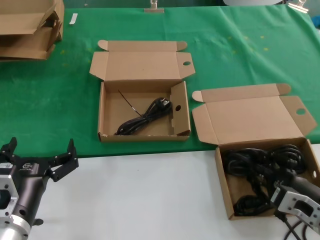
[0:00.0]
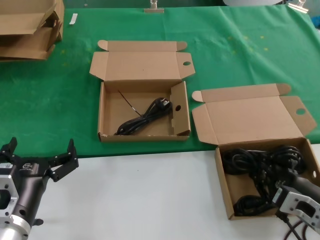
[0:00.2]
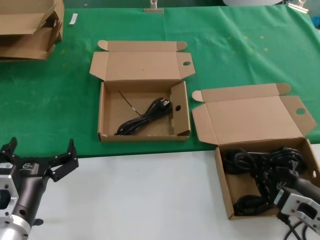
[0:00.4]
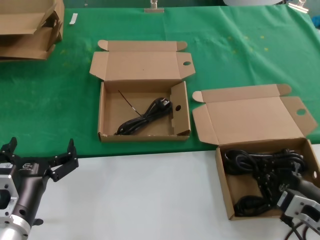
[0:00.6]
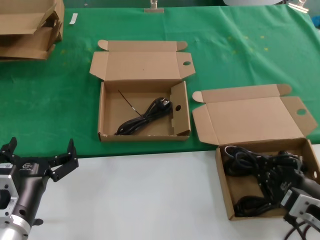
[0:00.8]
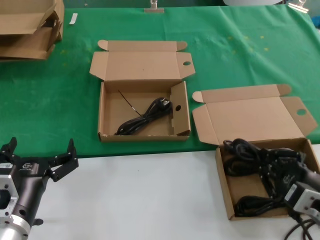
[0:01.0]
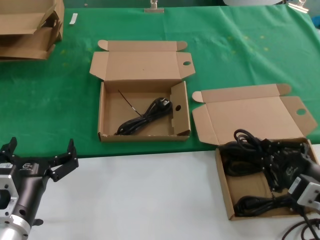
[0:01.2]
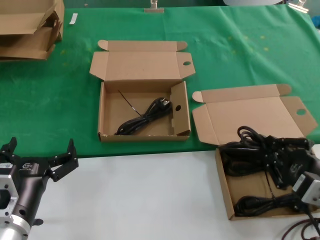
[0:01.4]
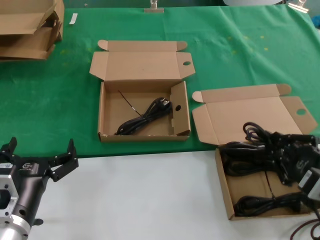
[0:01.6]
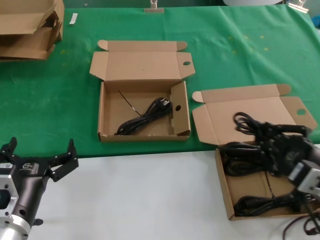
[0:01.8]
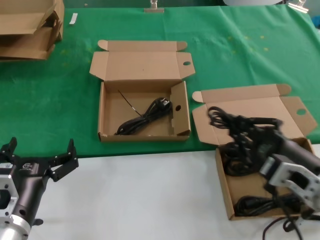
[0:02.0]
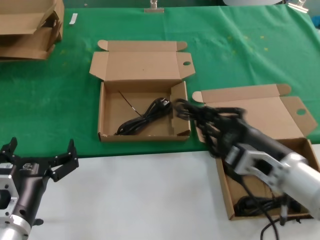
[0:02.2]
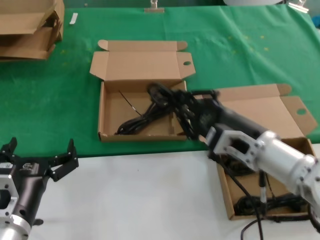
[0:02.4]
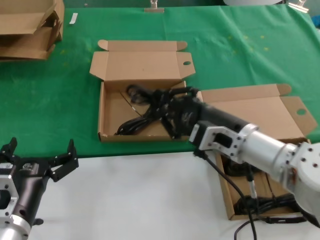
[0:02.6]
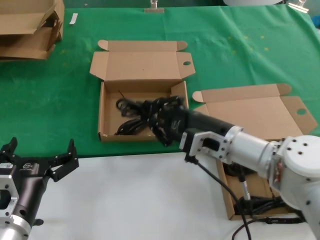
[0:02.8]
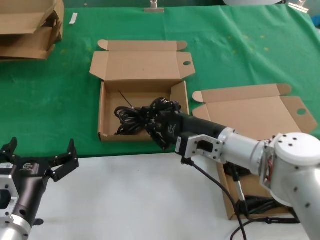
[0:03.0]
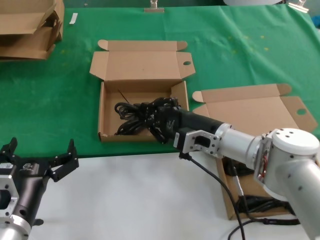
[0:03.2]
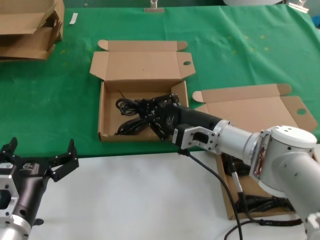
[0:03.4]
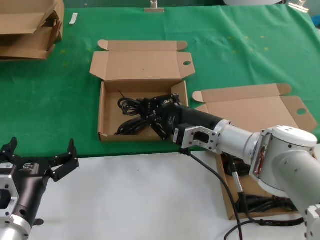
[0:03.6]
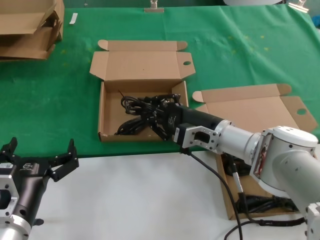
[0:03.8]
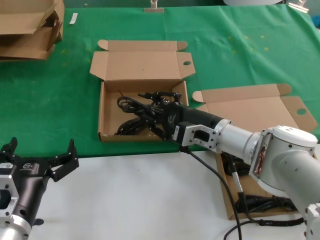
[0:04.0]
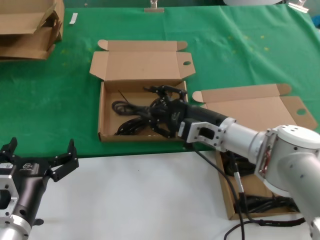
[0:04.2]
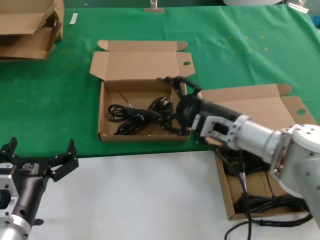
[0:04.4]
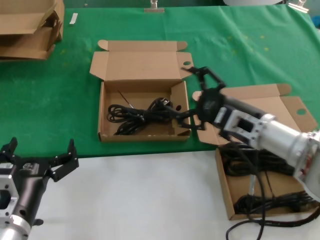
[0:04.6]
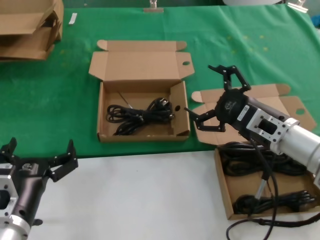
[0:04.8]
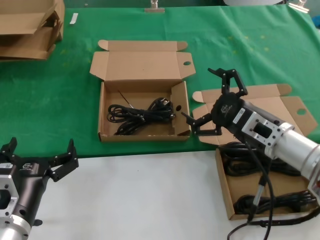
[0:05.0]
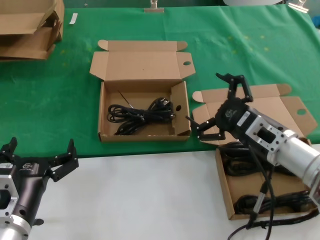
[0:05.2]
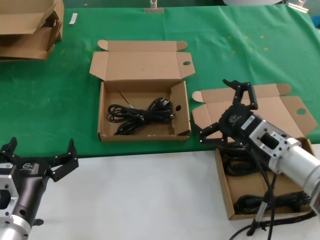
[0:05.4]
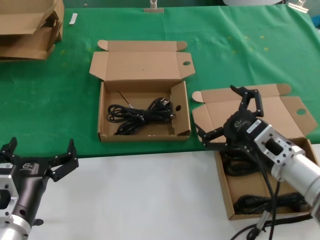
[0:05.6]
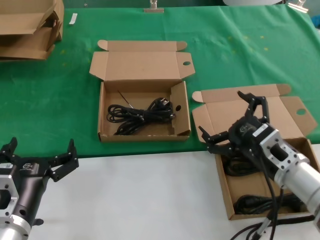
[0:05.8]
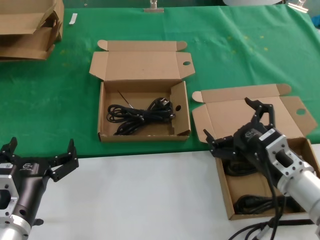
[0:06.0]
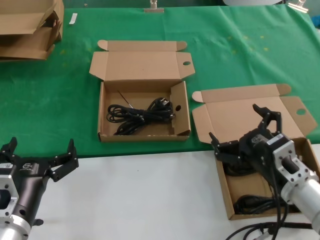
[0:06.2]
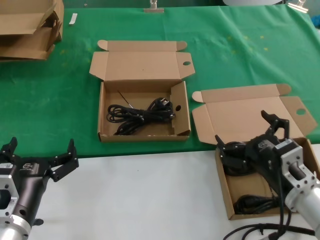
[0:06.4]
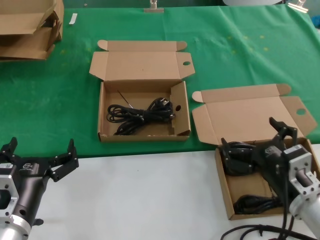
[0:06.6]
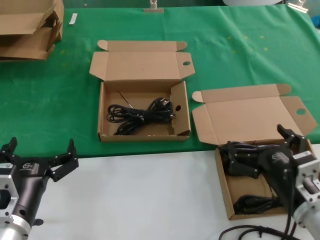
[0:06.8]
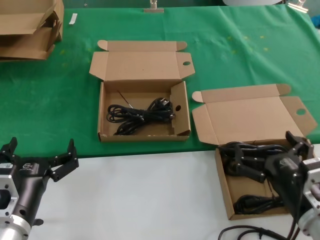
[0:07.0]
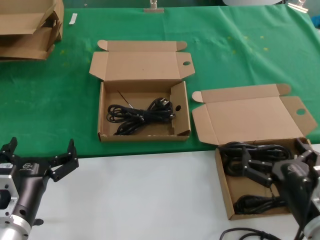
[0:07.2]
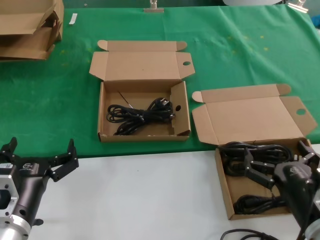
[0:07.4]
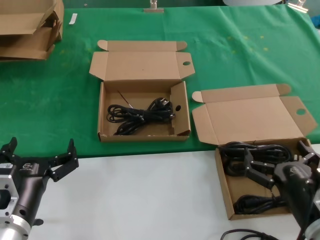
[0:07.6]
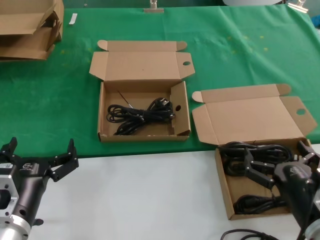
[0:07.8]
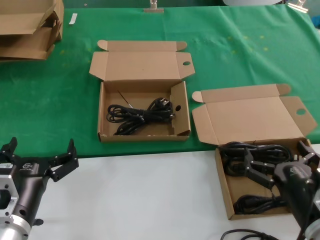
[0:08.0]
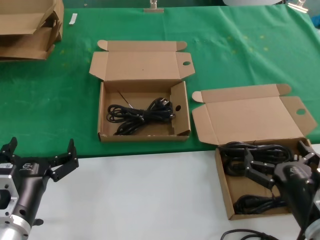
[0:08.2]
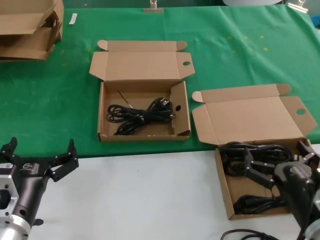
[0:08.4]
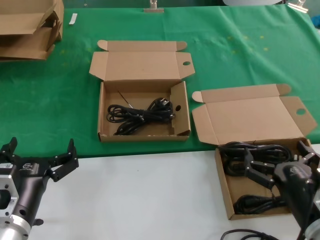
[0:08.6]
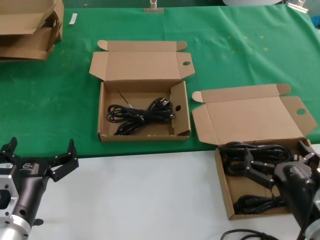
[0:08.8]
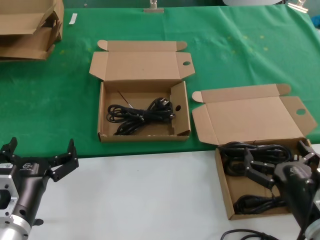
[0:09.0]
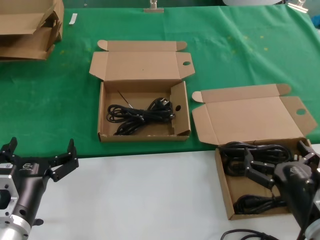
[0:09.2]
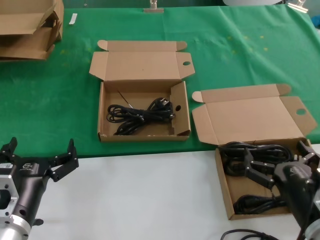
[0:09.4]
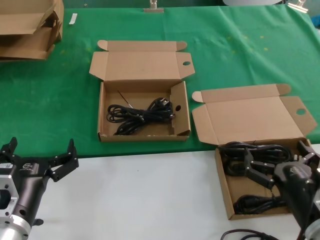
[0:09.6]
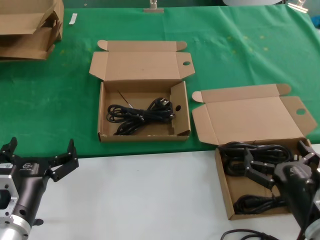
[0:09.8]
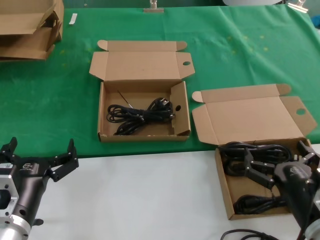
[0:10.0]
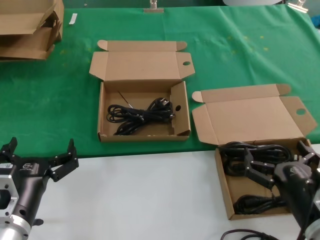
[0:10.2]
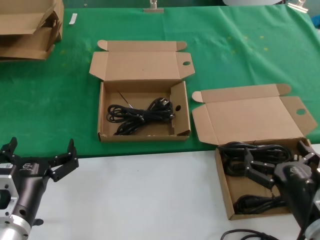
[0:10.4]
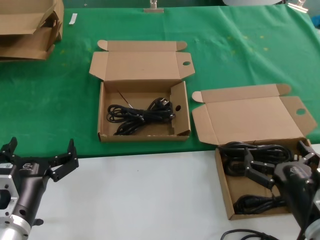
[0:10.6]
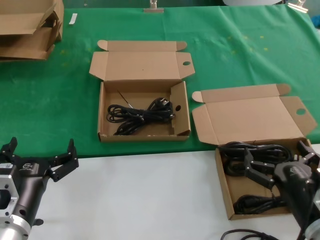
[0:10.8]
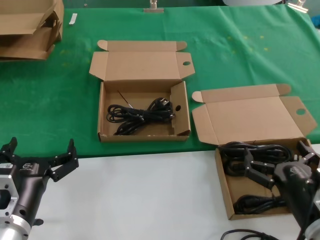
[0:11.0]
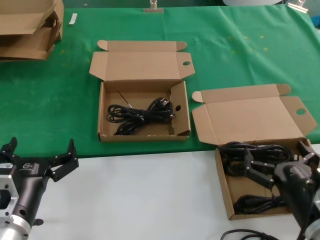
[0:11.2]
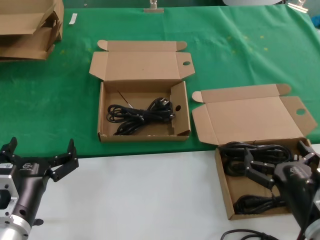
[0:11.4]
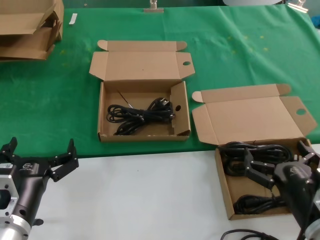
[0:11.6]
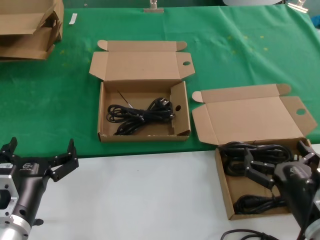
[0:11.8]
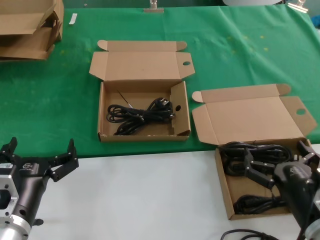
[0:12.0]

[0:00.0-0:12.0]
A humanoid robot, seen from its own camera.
Task of the whole recording: take the parts from the box containing them and put them into an empty box.
Step, 0.0 to 4.2 s: Place the data cable in the another box.
0.0 to 1.6 s: The right hand goes some 10 cm upward.
1.6 to 3.0 s: The right hand moves forward and to the left, about 25 cm.
3.0 to 4.4 s: There are only small adjustments of the hands.
4.4 to 6.0 s: The right hand moves backward and to the right, roughly 15 cm.
6.0 to 7.6 s: The right hand moves backward, about 10 cm.
7.6 to 12.0 s: The two hands keep their place.

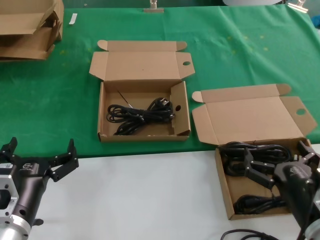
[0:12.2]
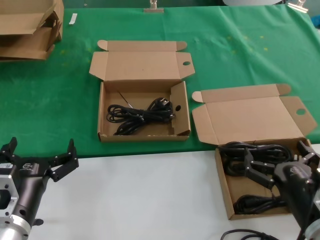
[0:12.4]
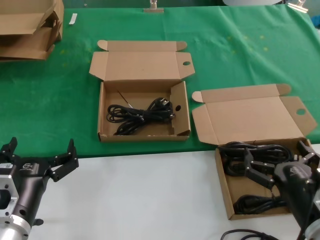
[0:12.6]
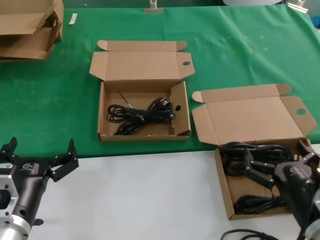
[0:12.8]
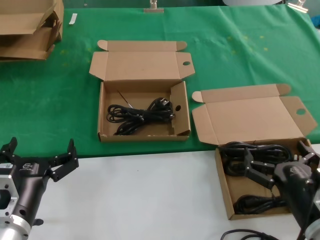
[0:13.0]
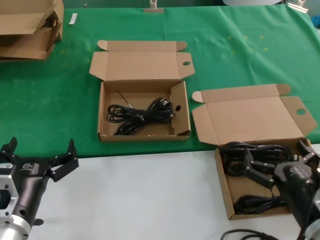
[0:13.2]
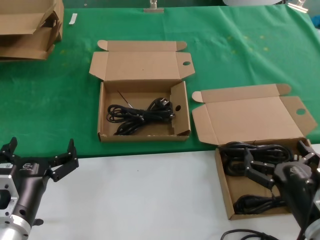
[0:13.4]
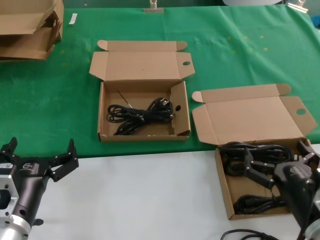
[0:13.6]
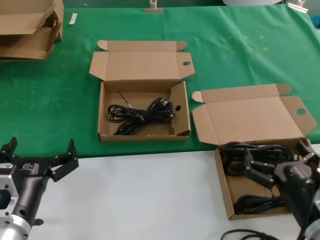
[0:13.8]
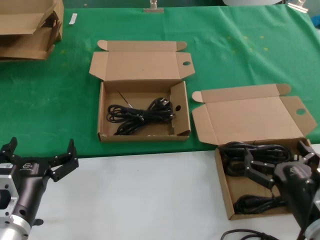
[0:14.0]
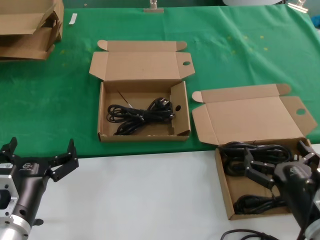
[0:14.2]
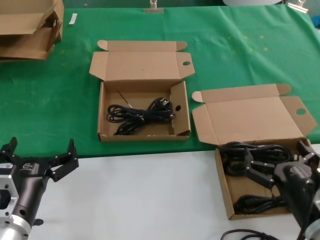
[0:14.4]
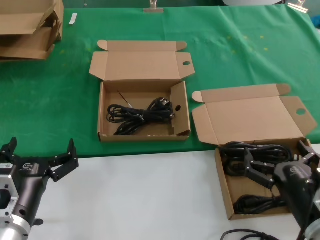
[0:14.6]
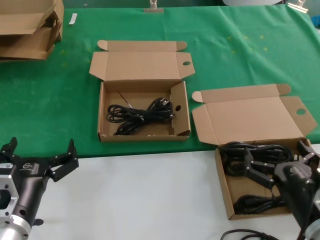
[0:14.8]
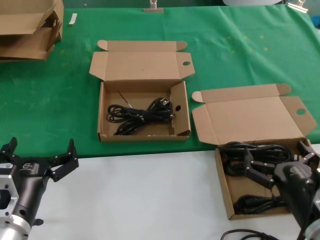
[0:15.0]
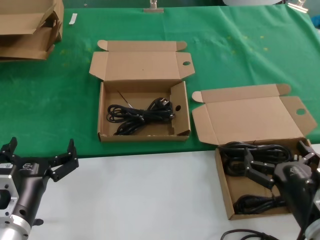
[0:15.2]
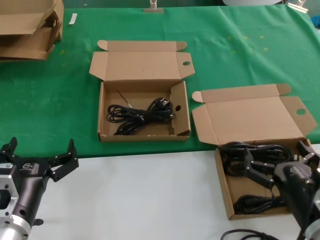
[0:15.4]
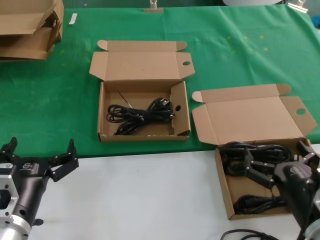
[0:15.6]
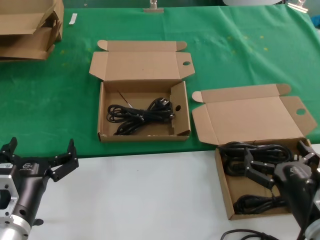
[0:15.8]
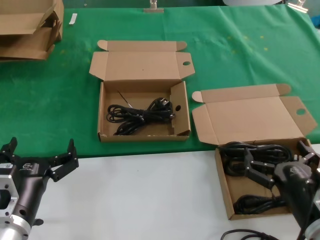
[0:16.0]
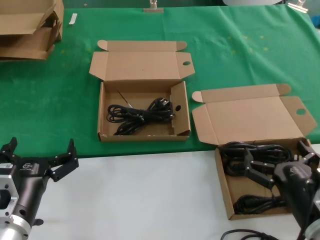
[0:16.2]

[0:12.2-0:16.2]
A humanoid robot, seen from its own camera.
Task of the whole recording: take the parts from the box containing them and put them into an empty box.
12.2 to 16.2 s: Both hands stay put.

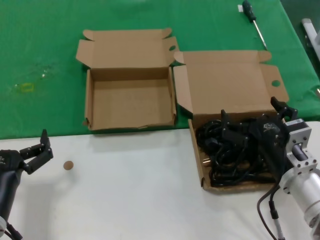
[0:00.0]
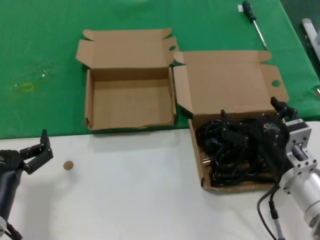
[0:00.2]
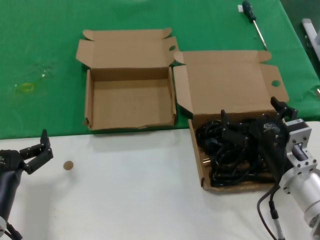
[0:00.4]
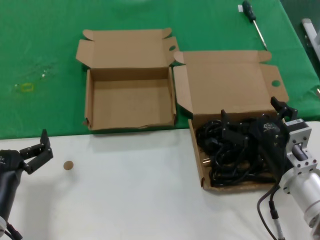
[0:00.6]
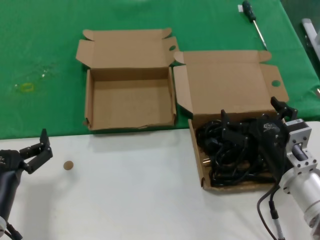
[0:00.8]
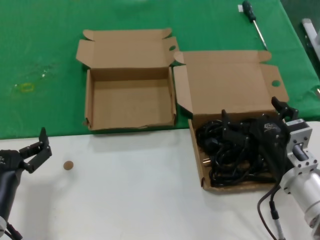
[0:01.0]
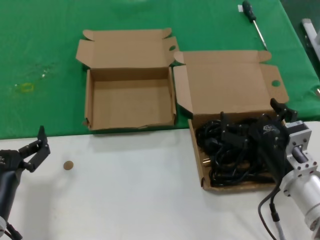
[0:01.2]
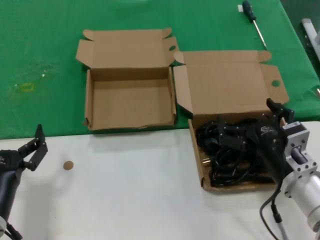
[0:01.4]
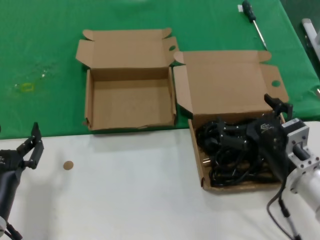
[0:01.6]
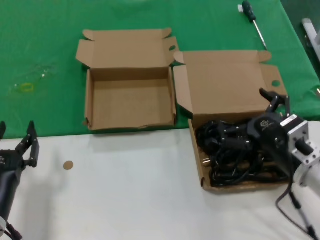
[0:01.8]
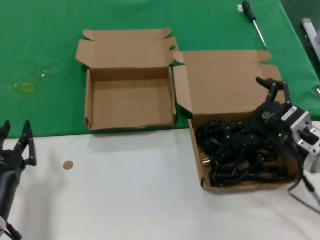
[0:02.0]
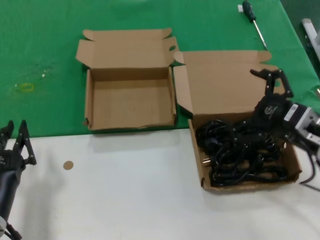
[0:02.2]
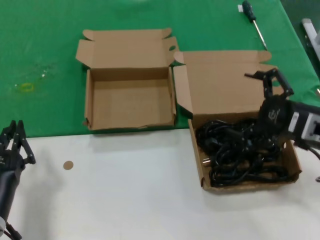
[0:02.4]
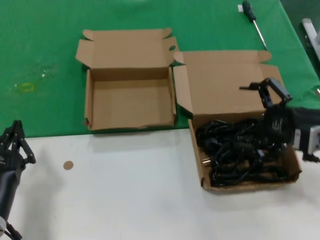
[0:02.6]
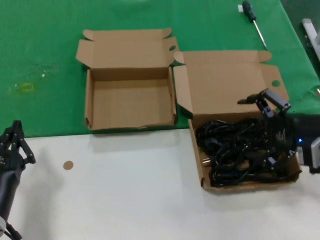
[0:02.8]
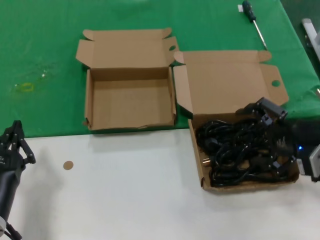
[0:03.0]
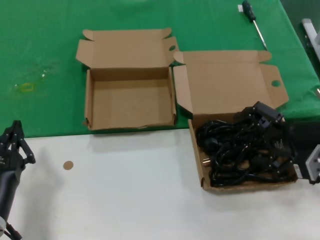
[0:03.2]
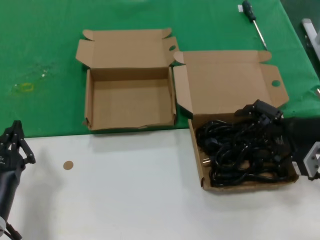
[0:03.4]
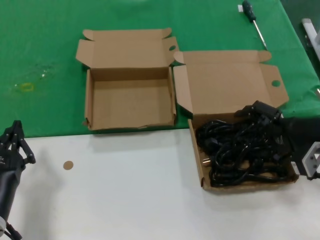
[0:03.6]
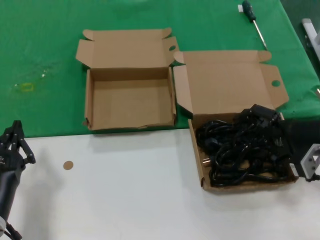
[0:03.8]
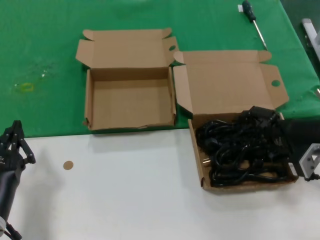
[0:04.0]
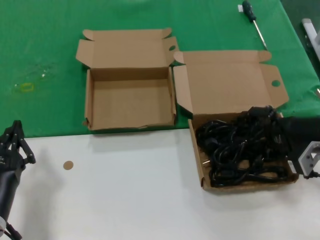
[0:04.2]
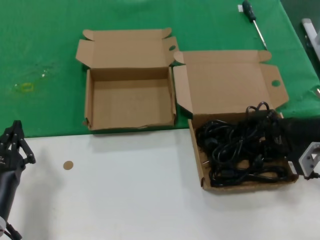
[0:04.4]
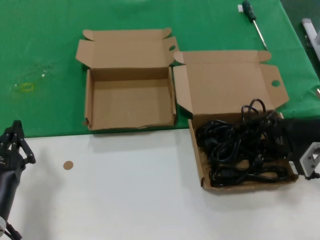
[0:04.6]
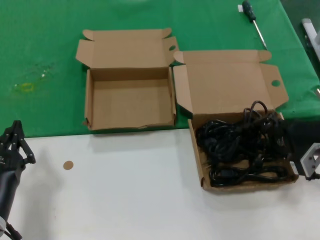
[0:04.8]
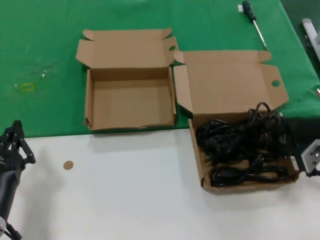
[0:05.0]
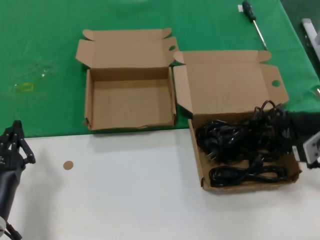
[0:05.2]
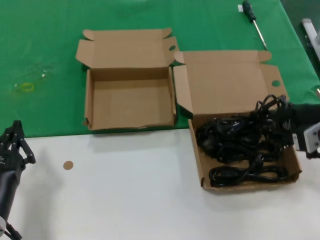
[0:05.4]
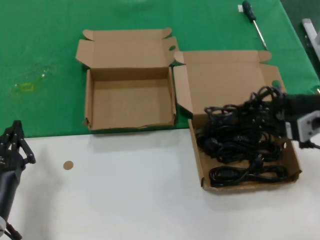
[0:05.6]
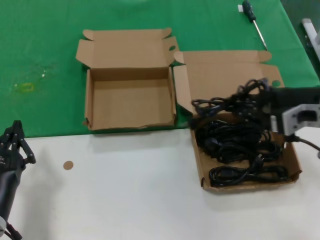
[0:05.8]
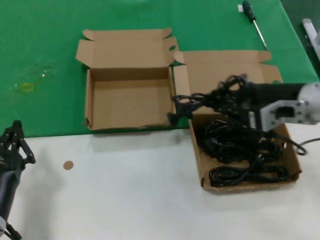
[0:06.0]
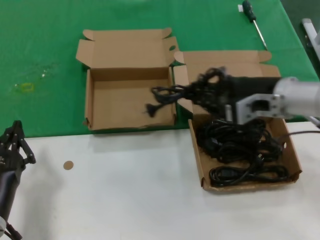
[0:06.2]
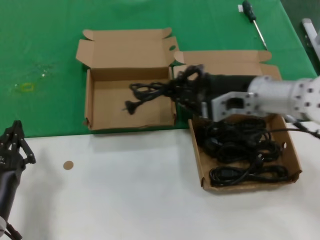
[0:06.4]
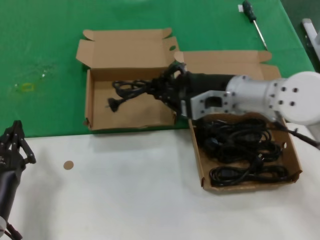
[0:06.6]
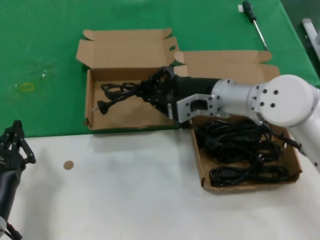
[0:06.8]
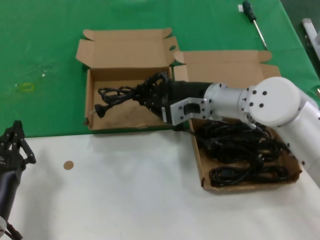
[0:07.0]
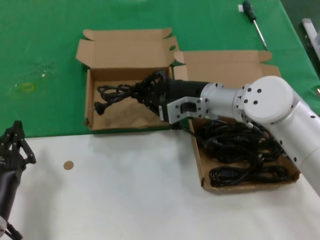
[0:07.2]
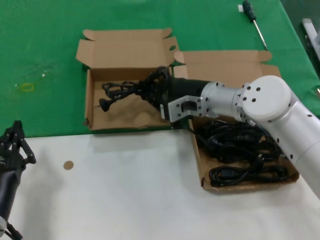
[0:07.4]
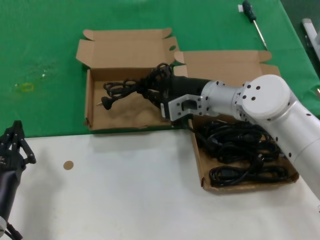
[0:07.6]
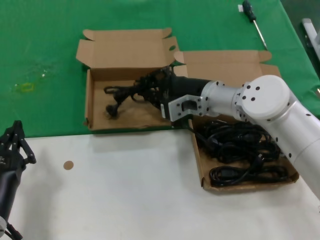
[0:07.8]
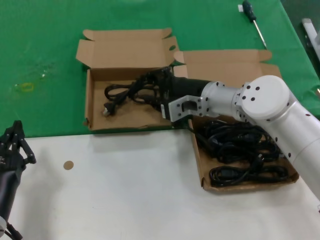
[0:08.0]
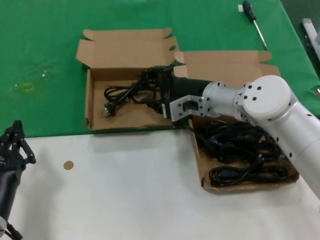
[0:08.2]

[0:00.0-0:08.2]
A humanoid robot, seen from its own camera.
Task of the whole recording: take the parts from the box containing them and put them into an empty box.
Step, 0.0 to 4.4 s: Grasp the data cable.
0.0 to 1.6 s: There are only small adjustments of the hands.
1.6 to 3.2 s: The right hand goes roughly 15 cm to the right, upward and forward.
3.2 to 5.0 s: There are only small adjustments of the hands.
5.0 to 6.6 s: The right hand is displaced to the left and forward by about 20 cm.
6.6 to 8.2 s: The right hand shifts some 5 cm forward.
